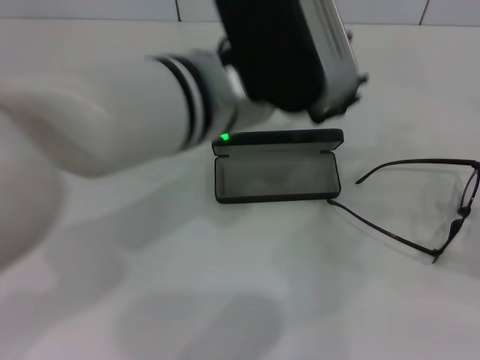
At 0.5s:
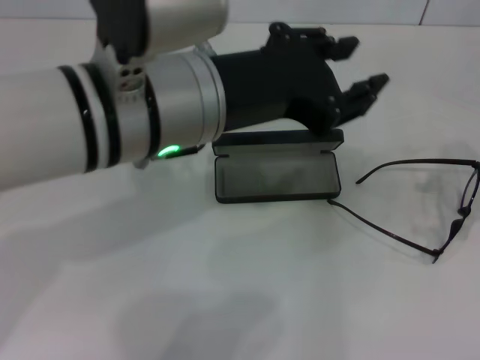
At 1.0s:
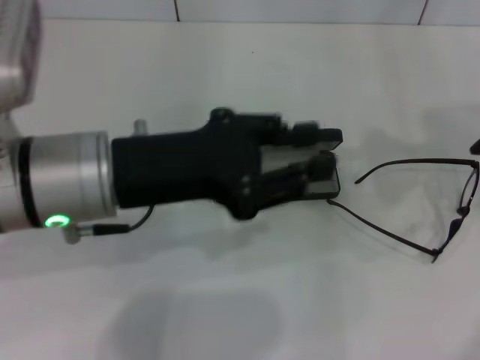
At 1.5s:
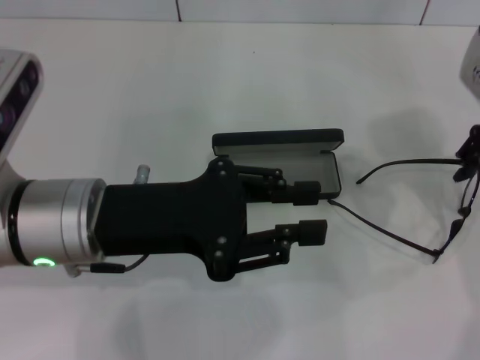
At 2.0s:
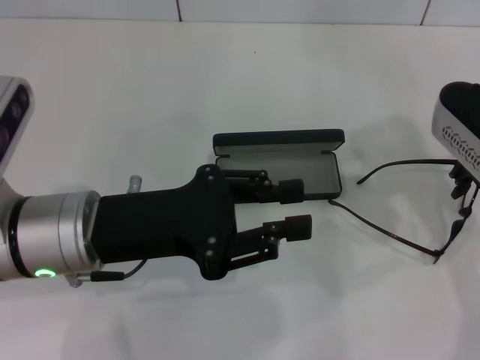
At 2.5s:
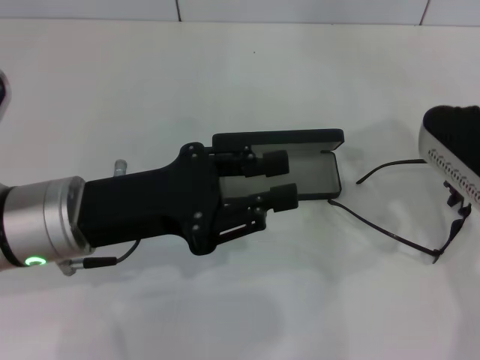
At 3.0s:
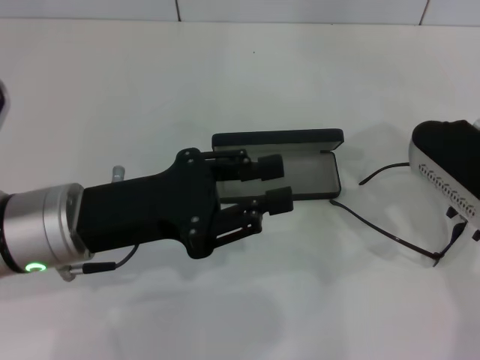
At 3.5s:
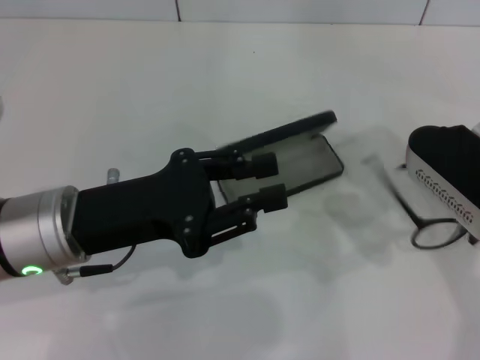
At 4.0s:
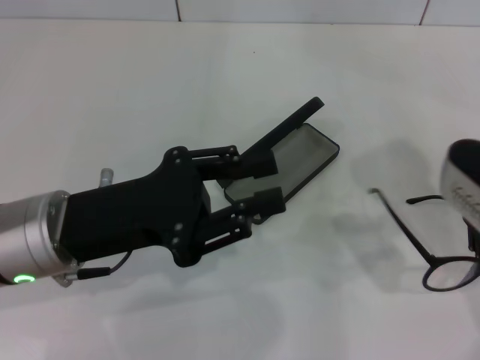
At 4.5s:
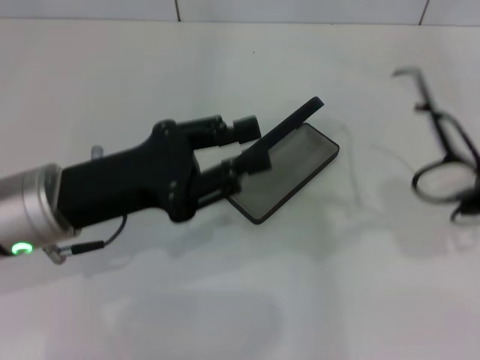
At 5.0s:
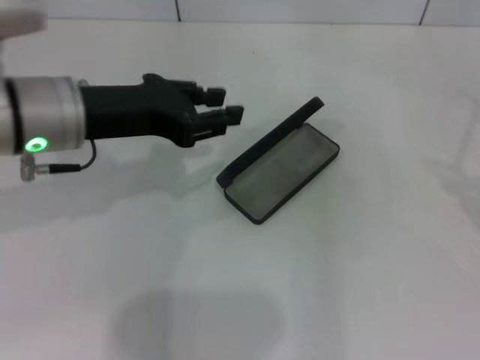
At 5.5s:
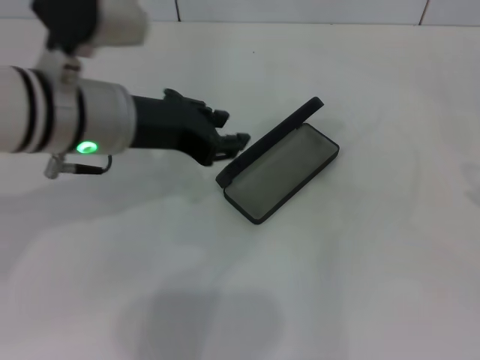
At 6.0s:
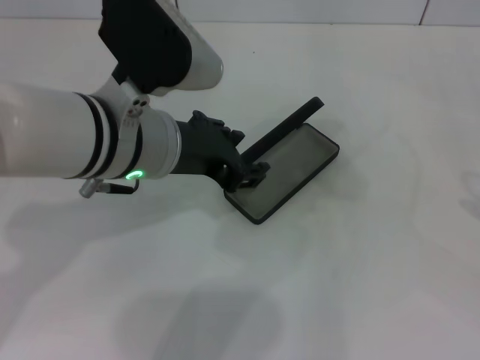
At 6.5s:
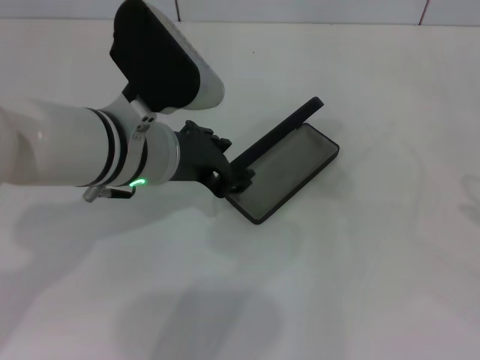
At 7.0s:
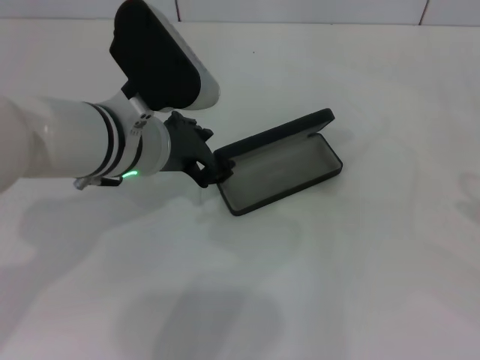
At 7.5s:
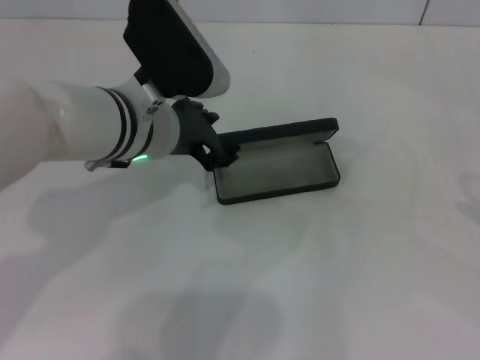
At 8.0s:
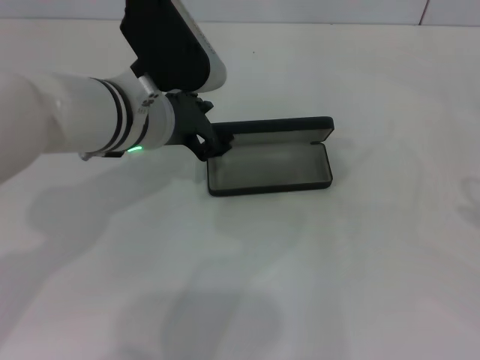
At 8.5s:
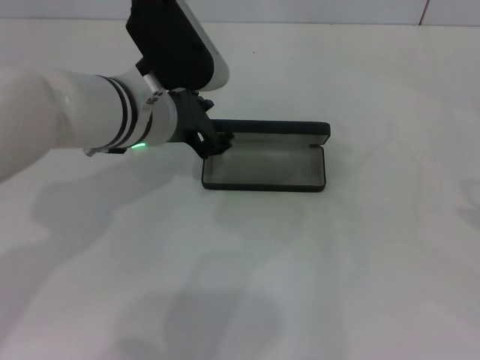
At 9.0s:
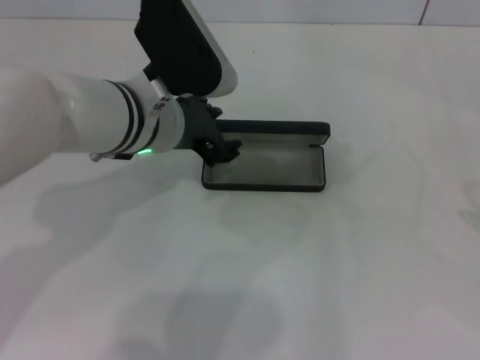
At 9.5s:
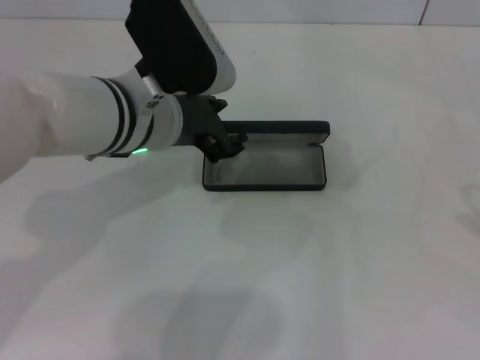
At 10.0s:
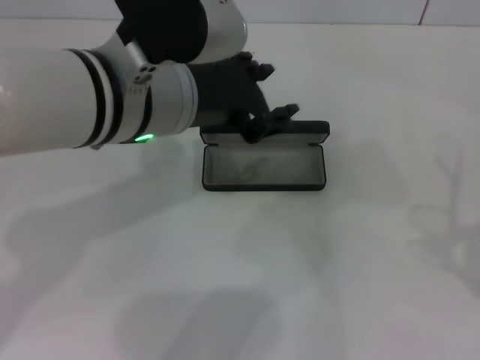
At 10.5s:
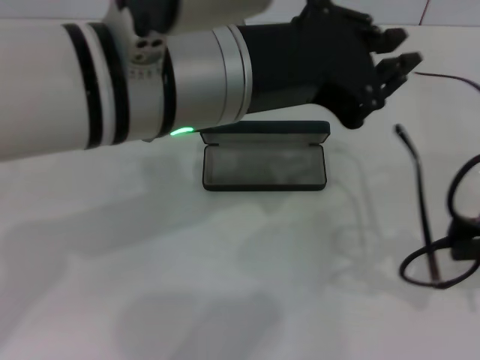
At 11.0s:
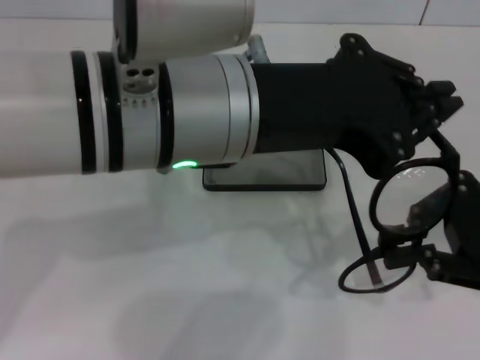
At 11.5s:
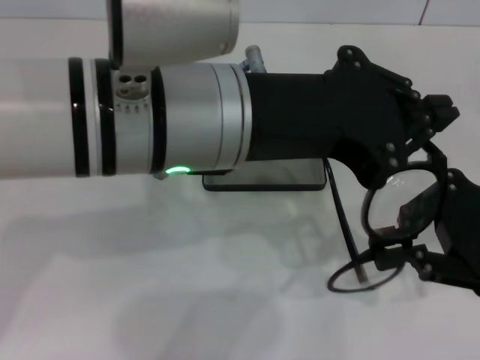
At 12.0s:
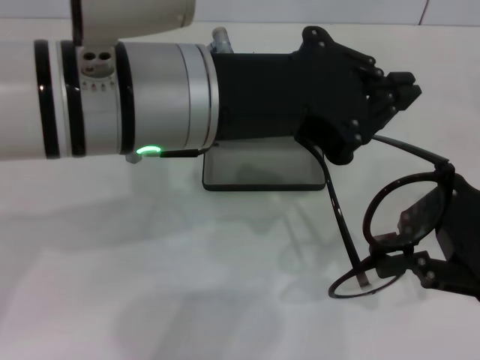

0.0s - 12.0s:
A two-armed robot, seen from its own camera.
Step, 0.0s - 9.5s: Grab the eyeglass frame with your right hand.
0.0s - 2.0s: The right gripper is displaced to the left and forward by about 25 cm. The left gripper goes about 15 cm to the left and downward.
2.0s - 4.0s: The right gripper closes up.
4.0s - 6.0s: The right gripper travels to the right and backward by some 25 cm. The left gripper goes about 10 cm to the right, forward and upward.
6.0s - 8.0s: The left gripper changes place by about 5 cm.
8.0s - 10.0s: The left gripper shifts about 5 cm upward.
10.0s - 12.0s: The left gripper shifts by approximately 5 cm, and closes. The right gripper heads to the left and forward, covering about 15 cm.

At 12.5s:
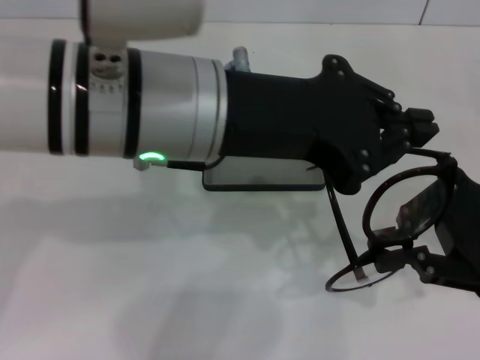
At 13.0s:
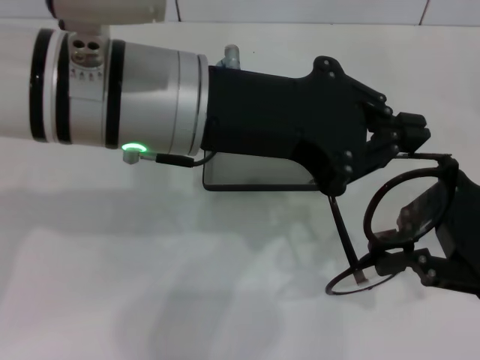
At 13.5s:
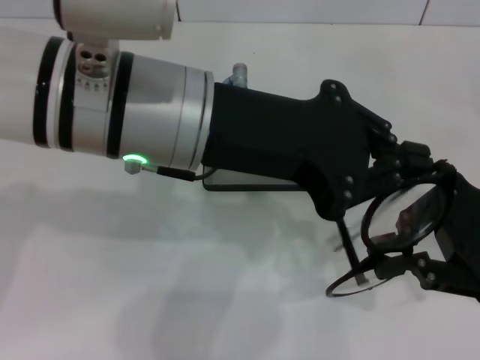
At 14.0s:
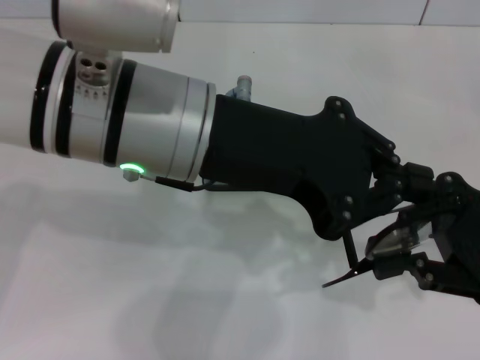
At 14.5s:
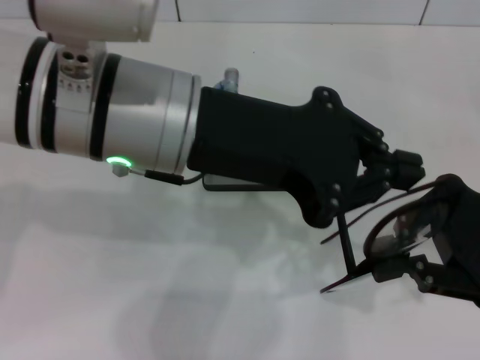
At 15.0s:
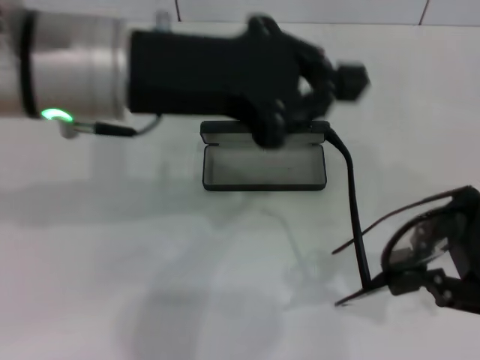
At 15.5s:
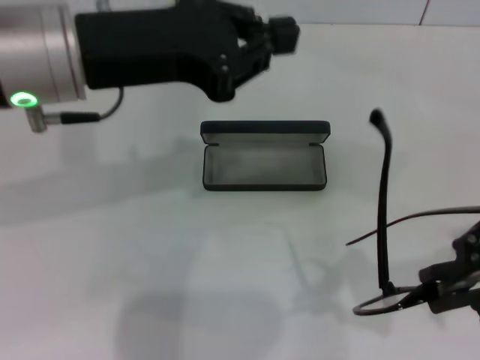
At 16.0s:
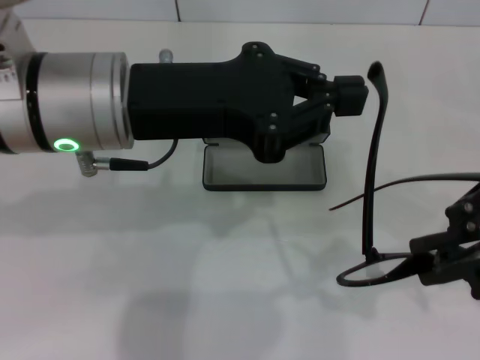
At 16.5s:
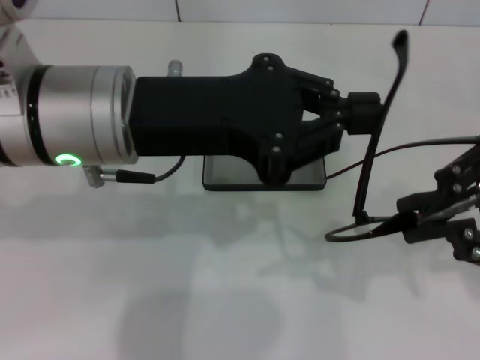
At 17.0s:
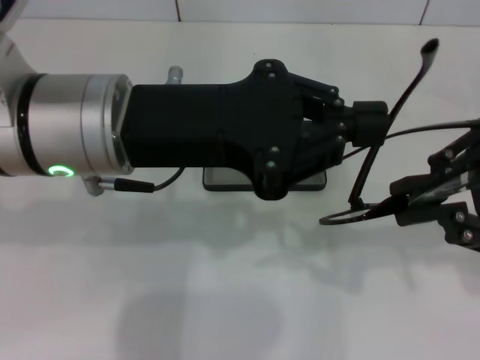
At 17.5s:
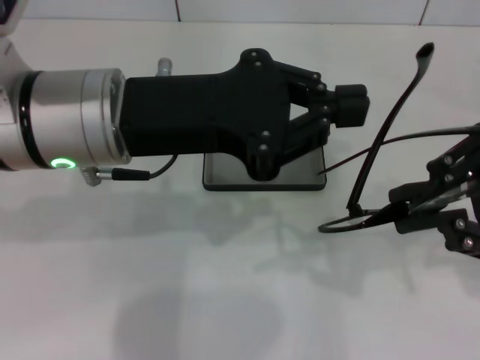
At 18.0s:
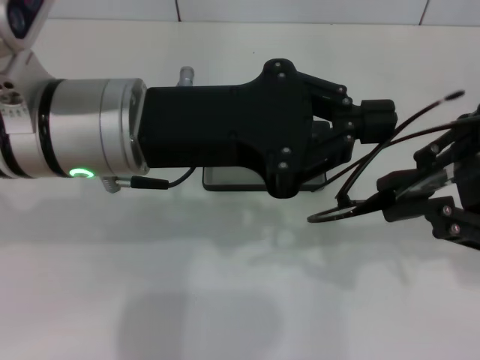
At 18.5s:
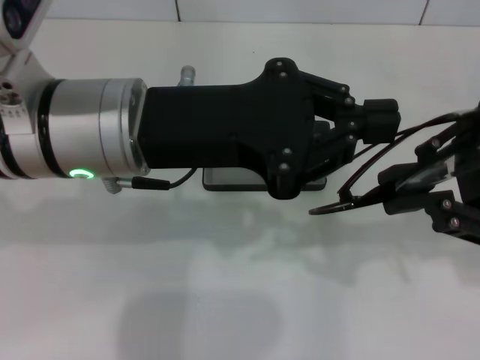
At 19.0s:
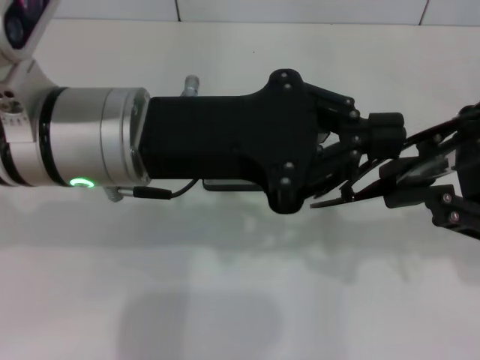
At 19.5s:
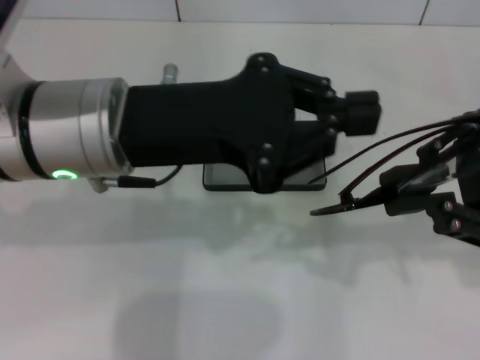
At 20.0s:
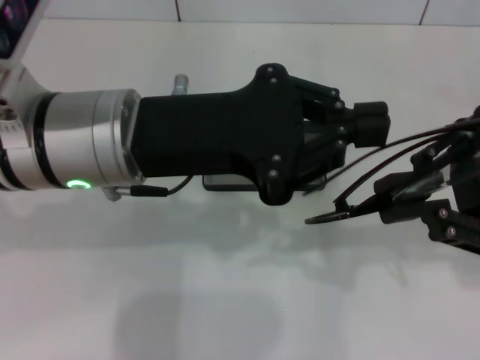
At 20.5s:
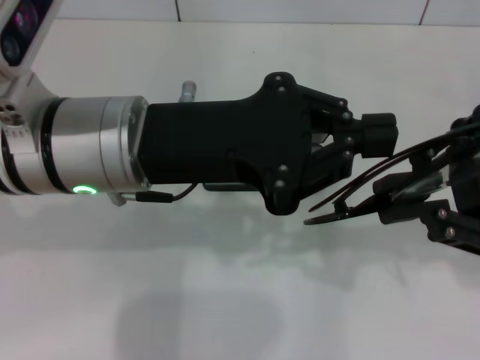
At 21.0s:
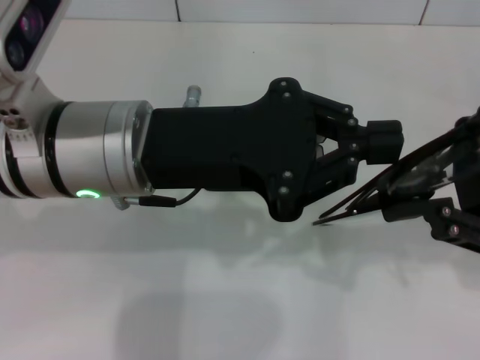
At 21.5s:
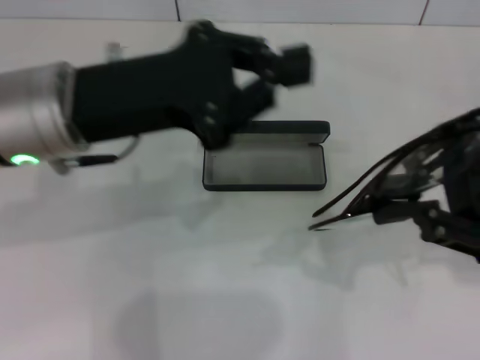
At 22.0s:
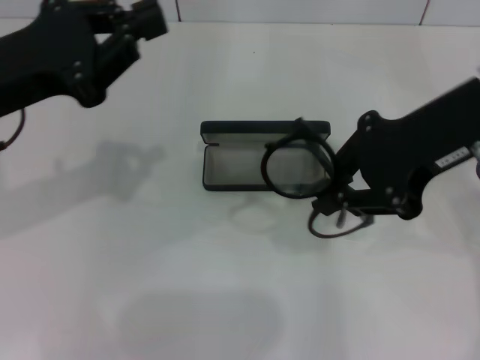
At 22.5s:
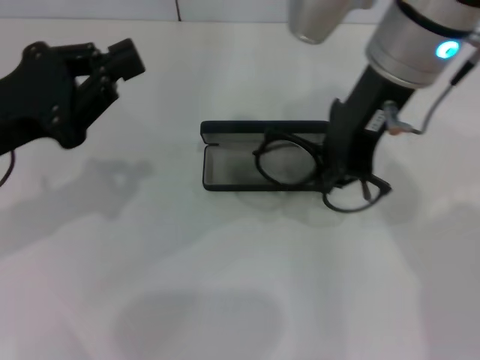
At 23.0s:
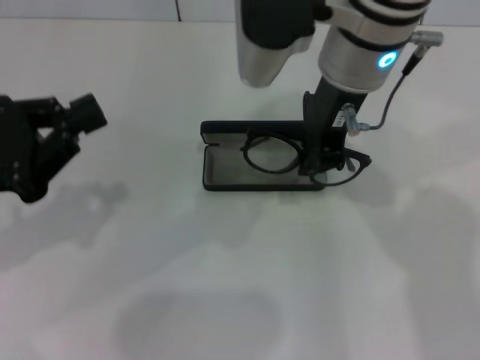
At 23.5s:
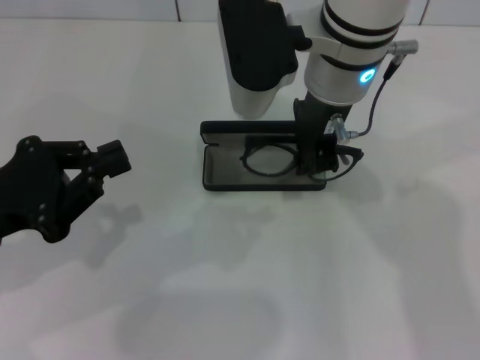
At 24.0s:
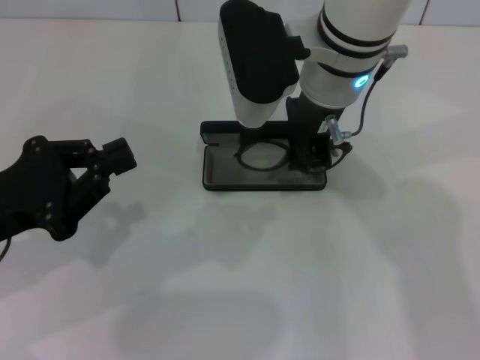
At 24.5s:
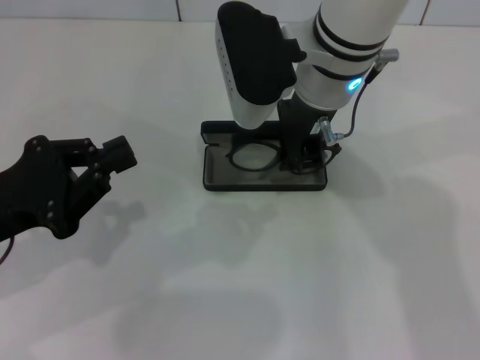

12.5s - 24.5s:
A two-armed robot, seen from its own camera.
Step, 12.5s - 21.0s: Fold the frame with your left hand.
18.5s - 20.5s: The grippers make only small movements.
20.5s - 22.5s: The left gripper moves to the left, about 15 cm, while the right gripper shifts roughly 20 cm to the left and forward.
22.5s - 24.5s: The left gripper is displaced downward by some 5 cm. The right gripper goes about 10 cm downward and to the left.

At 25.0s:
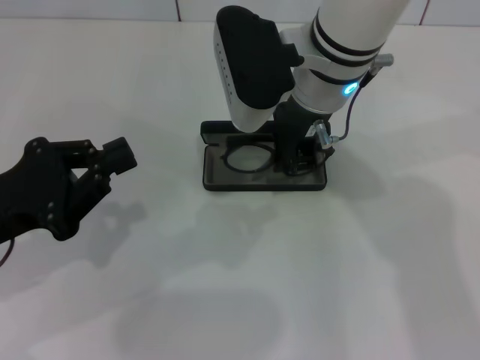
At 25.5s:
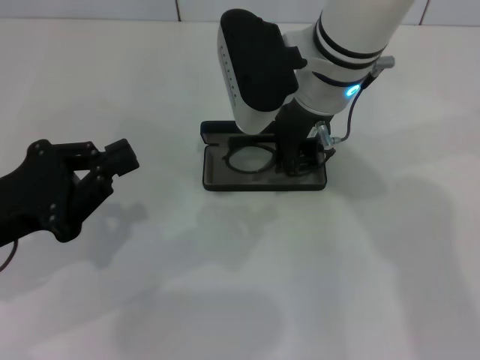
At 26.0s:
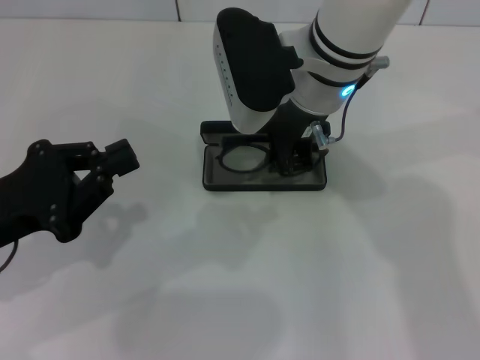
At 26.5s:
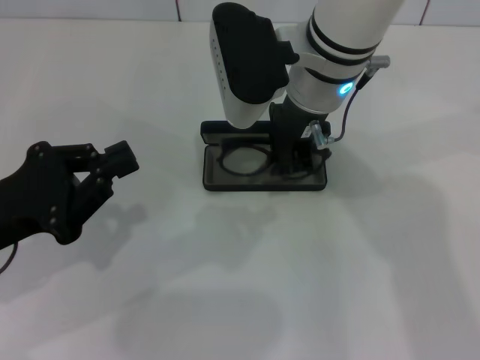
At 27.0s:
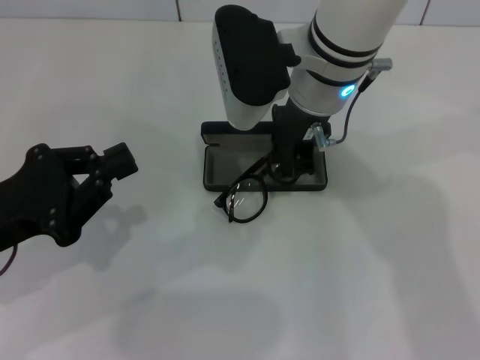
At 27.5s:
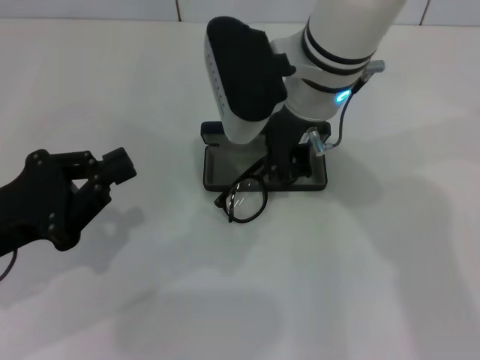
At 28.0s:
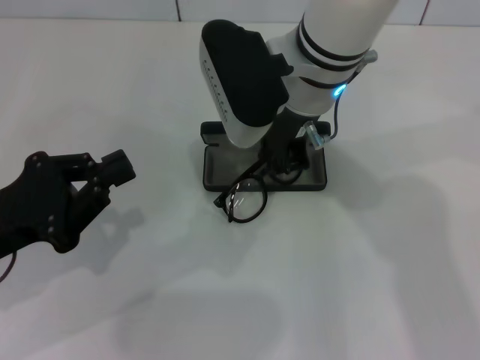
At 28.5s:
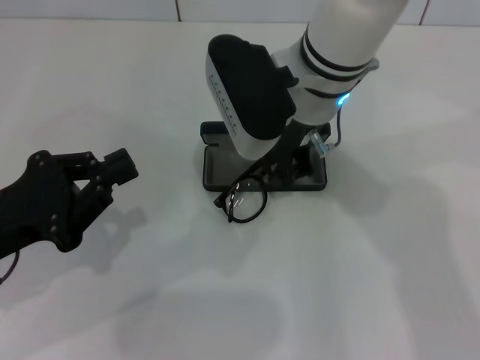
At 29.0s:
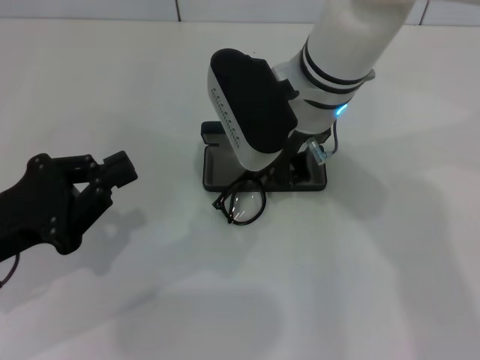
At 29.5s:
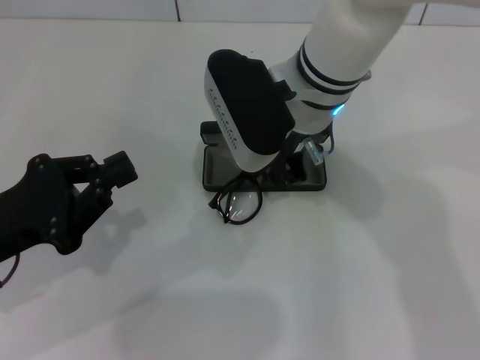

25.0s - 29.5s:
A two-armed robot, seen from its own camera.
25.0s - 27.0s: Both grippers stay put.
27.0s - 29.5s: The grippers make only small movements.
